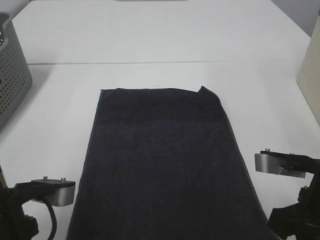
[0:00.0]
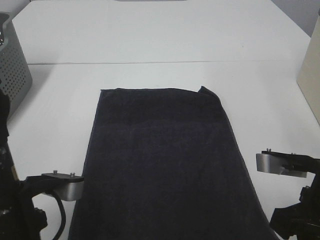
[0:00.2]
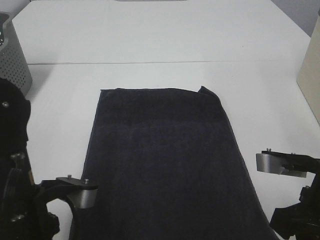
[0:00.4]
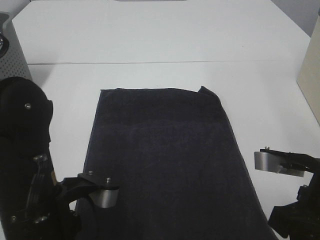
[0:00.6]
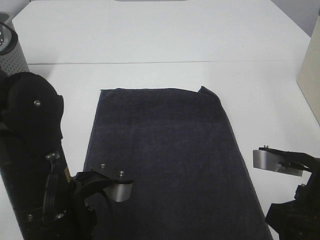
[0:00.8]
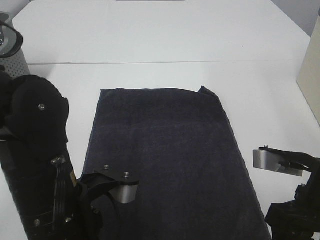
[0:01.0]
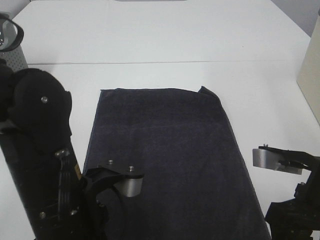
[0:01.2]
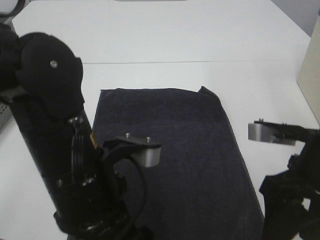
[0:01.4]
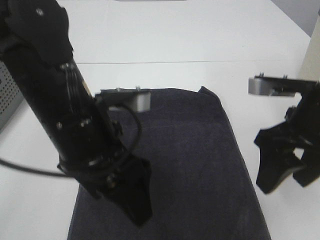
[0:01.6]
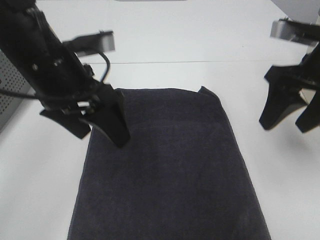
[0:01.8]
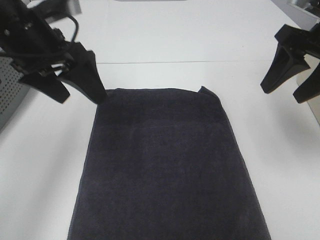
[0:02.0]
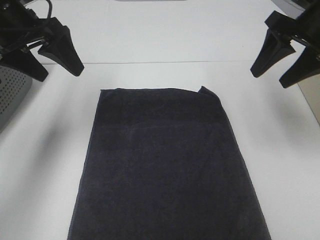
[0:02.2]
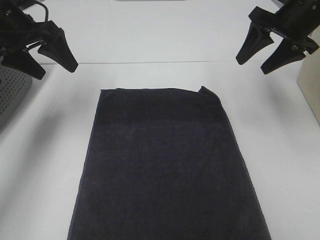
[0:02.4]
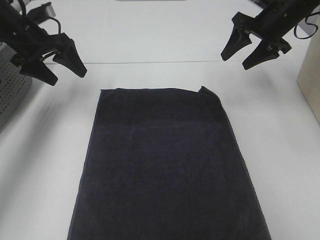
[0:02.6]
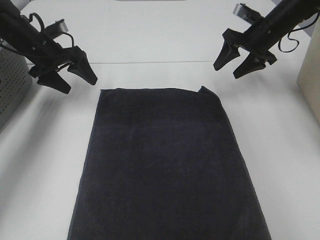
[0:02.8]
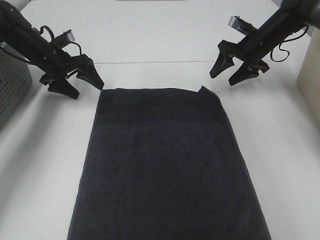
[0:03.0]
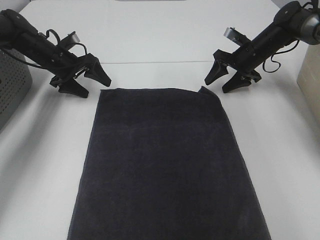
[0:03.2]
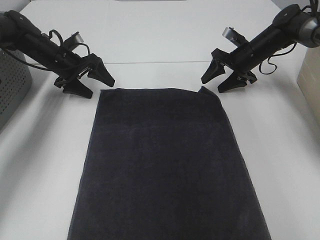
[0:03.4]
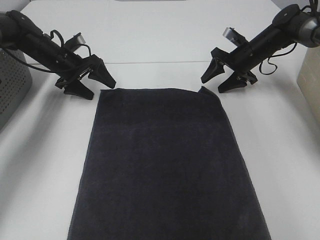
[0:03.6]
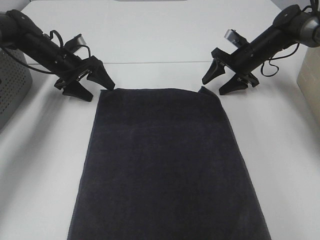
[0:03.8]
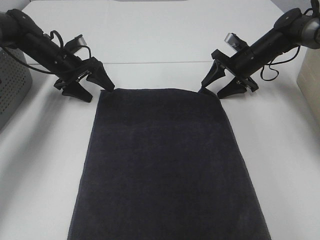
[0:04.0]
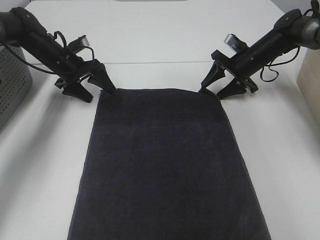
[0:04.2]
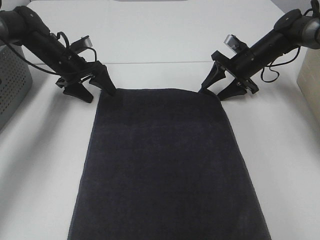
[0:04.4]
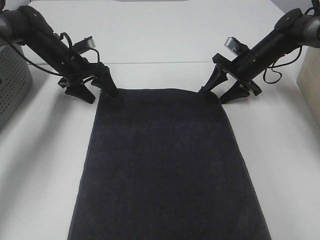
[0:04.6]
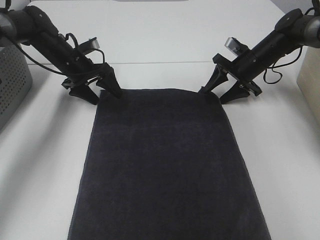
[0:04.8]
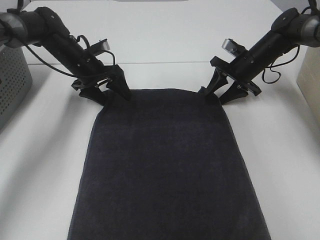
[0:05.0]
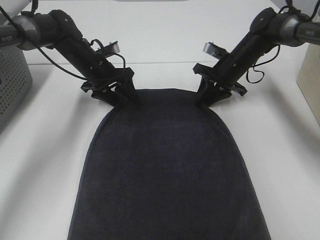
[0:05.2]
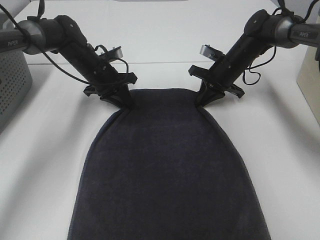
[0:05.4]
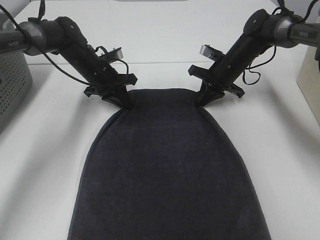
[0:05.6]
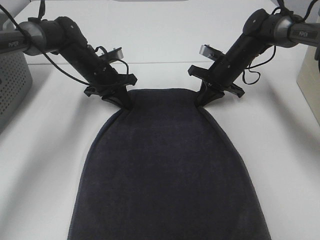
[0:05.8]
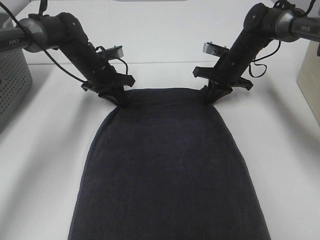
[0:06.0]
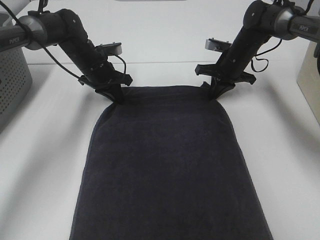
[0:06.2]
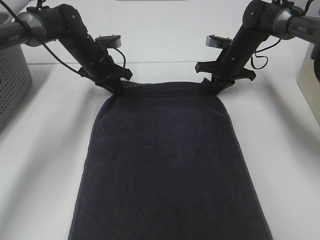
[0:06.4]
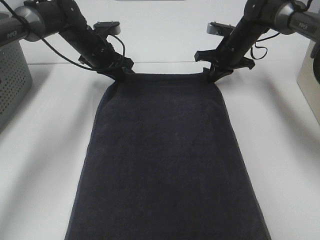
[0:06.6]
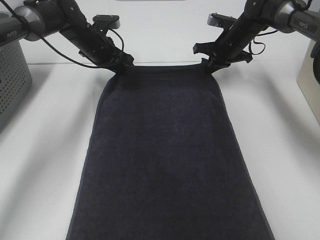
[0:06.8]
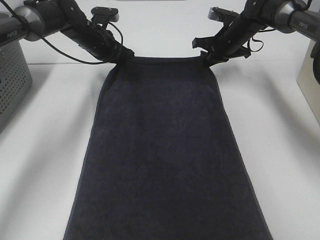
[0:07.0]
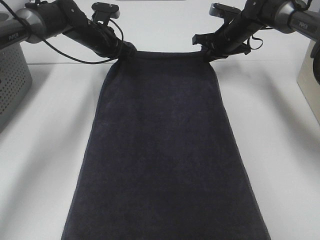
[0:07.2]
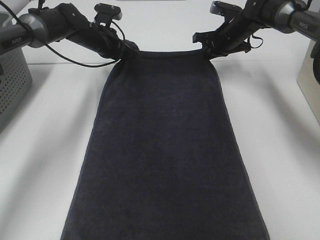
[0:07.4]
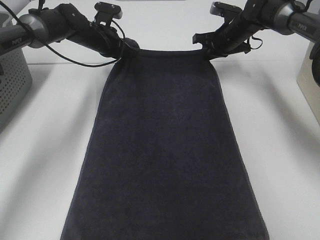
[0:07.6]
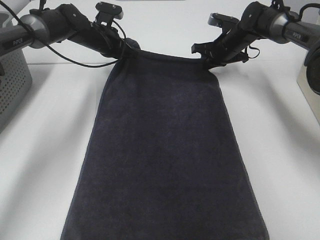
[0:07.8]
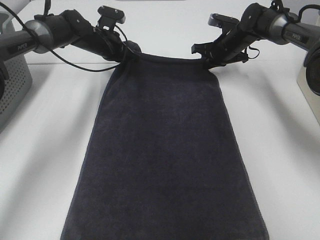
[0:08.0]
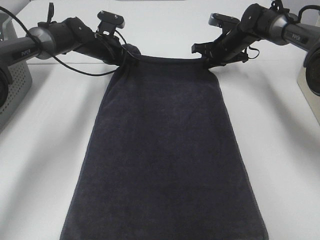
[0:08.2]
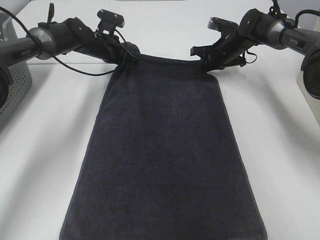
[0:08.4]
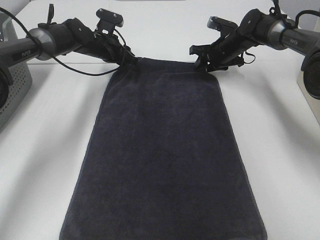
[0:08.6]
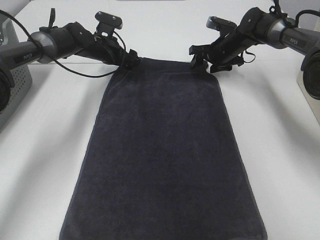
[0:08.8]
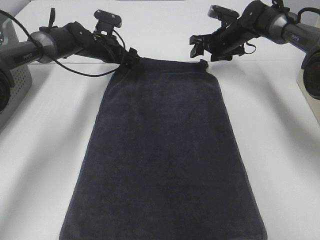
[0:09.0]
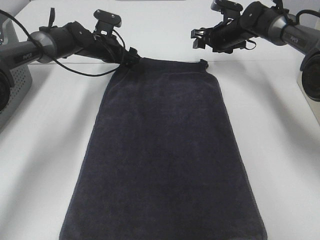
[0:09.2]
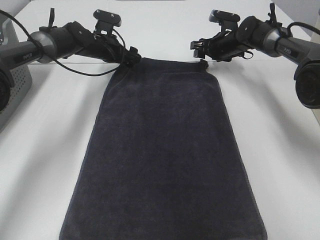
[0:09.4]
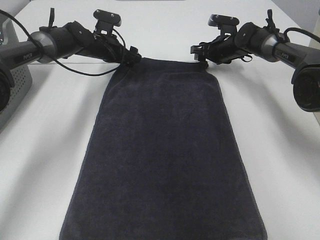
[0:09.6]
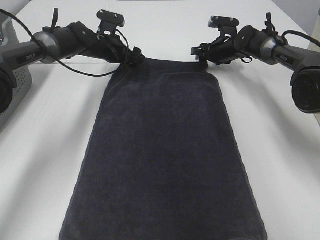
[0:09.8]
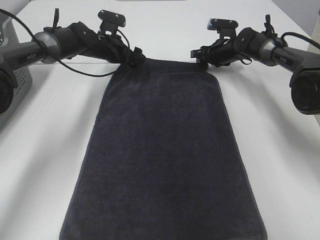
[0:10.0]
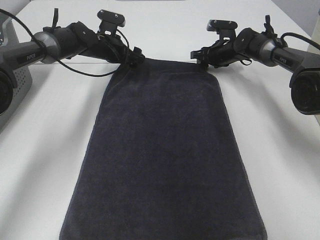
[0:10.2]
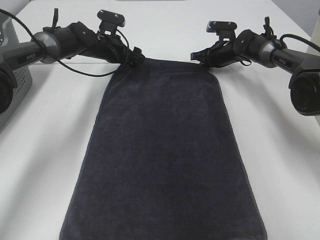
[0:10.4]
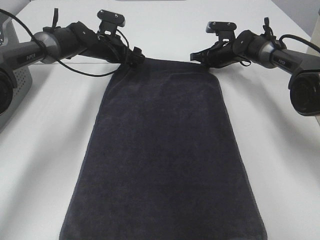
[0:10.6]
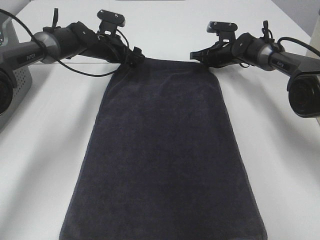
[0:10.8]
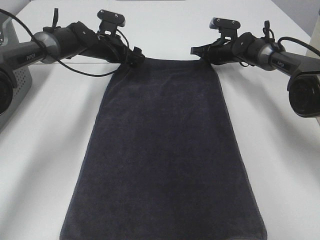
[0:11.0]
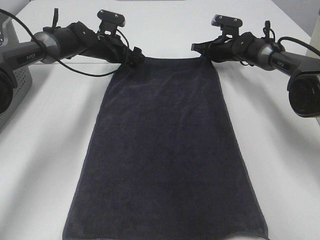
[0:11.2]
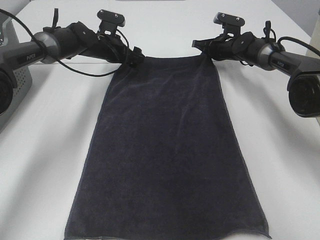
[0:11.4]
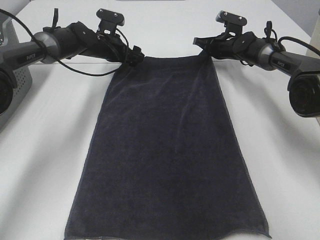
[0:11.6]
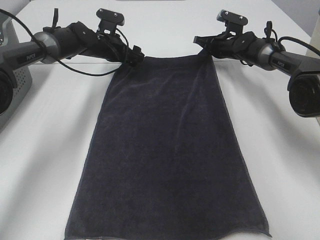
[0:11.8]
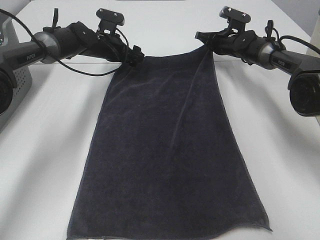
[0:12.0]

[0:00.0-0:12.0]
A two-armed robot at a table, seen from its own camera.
Task of the whole recording: Remove the towel and place it.
Step, 0:00.0 to 0:07.0: Left hand:adjust the gray towel.
Step, 0:00.0 to 0:07.0: Right hand:adjust the gray towel.
0:00.0 to 0:01.6: The left gripper moves forward, to the right and upward, approximately 15 cm, and opens its fingers. Meanwhile the right gripper moves forward and upward, approximately 10 cm, and opens its fingers.
0:01.6 to 0:03.0: The left gripper is displaced forward and to the left by approximately 35 cm; the right gripper is displaced forward by some 30 cm.
0:03.0 to 0:04.4: The right gripper travels downward by some 5 cm.
0:04.4 to 0:06.0: The left gripper is displaced to the right by some 5 cm, and closes up, while the right gripper moves about 5 cm, and closes its fingers.
0:06.0 to 0:07.6: Both grippers travel together forward, about 5 cm.
0:07.6 to 0:09.0: The left gripper opens up. Meanwhile the right gripper opens.
0:09.0 to 0:10.4: The right gripper travels downward by about 5 cm, and closes up.

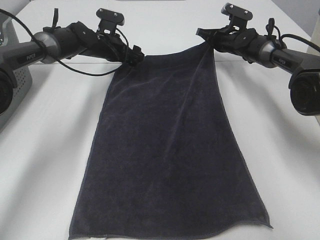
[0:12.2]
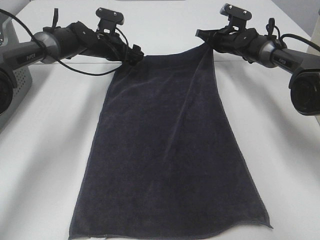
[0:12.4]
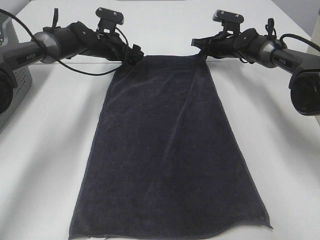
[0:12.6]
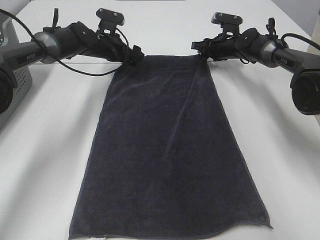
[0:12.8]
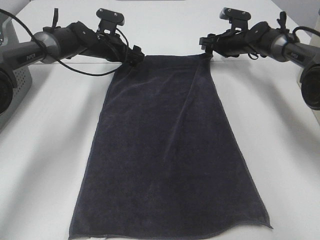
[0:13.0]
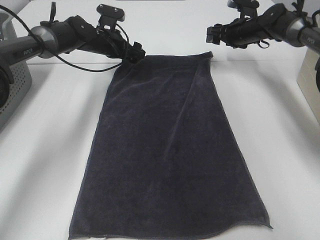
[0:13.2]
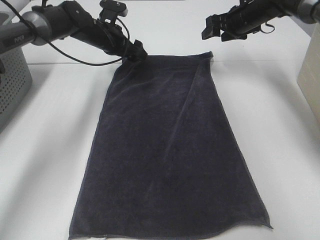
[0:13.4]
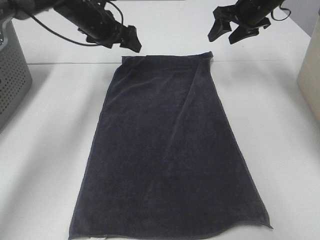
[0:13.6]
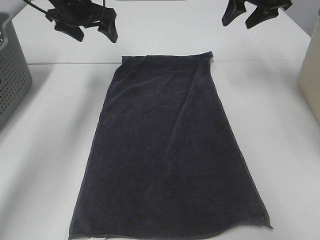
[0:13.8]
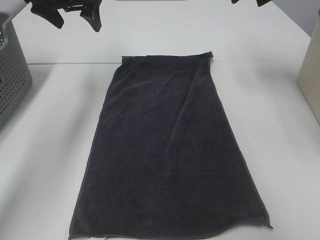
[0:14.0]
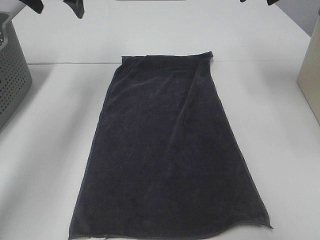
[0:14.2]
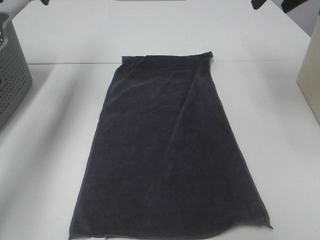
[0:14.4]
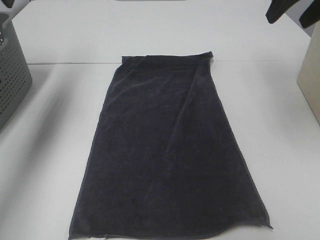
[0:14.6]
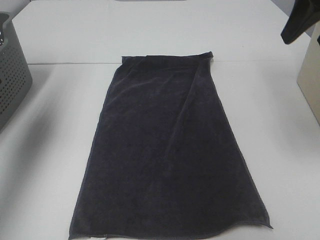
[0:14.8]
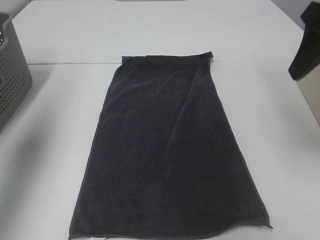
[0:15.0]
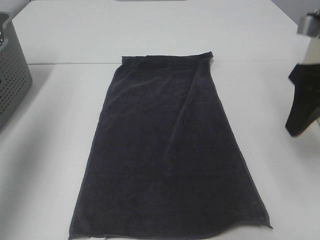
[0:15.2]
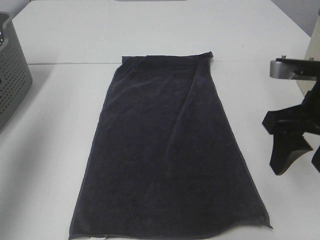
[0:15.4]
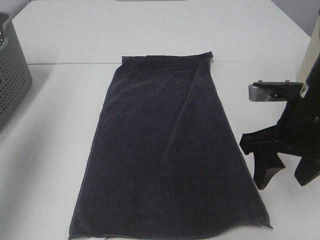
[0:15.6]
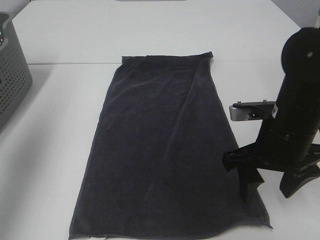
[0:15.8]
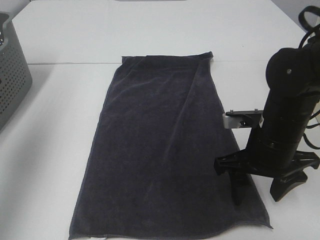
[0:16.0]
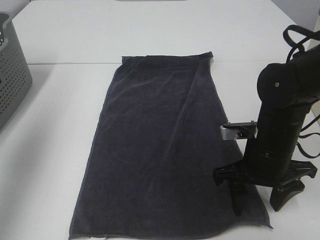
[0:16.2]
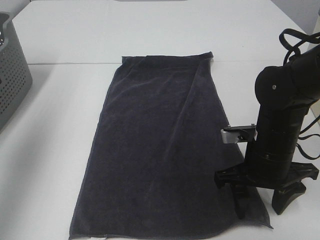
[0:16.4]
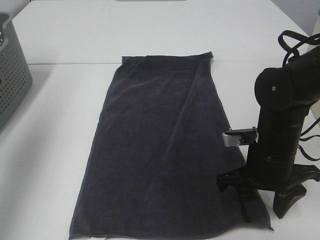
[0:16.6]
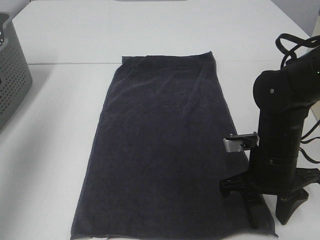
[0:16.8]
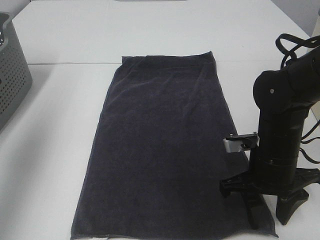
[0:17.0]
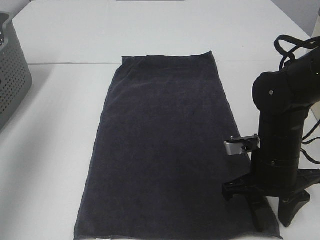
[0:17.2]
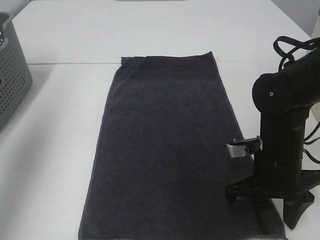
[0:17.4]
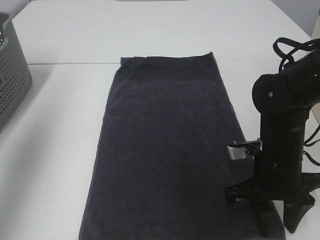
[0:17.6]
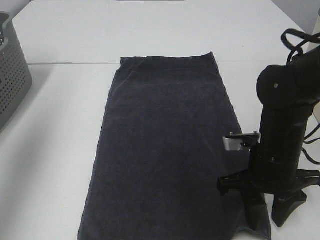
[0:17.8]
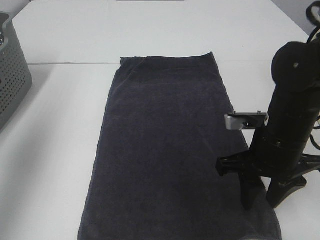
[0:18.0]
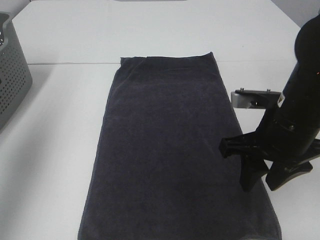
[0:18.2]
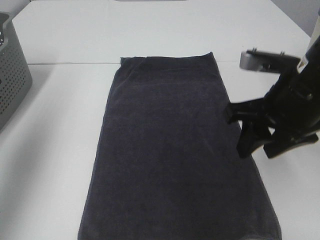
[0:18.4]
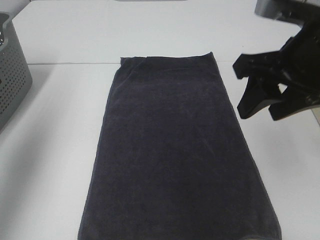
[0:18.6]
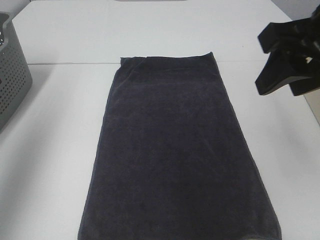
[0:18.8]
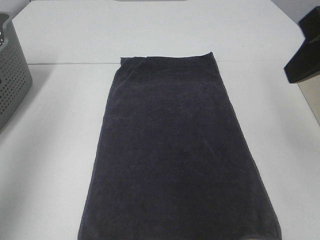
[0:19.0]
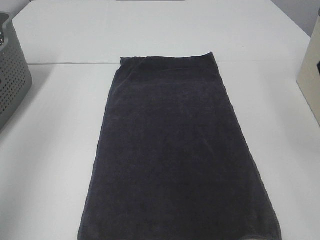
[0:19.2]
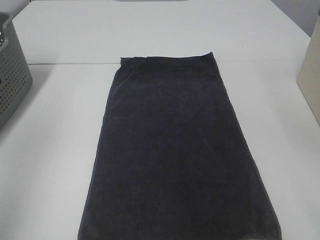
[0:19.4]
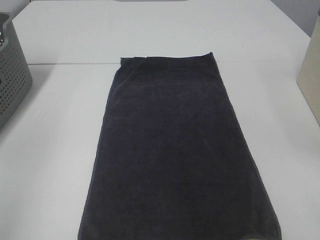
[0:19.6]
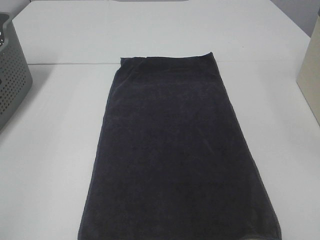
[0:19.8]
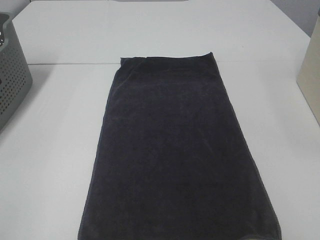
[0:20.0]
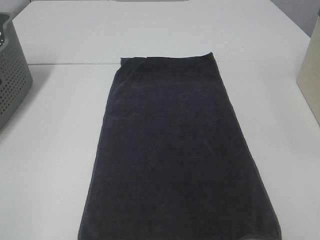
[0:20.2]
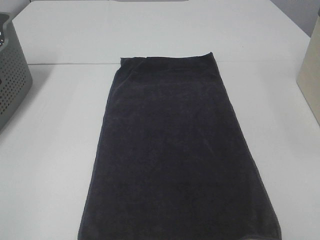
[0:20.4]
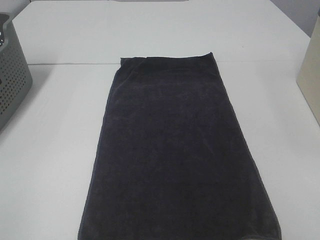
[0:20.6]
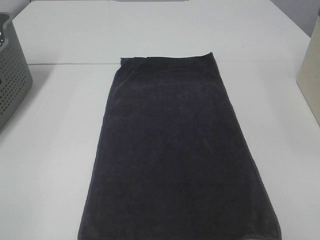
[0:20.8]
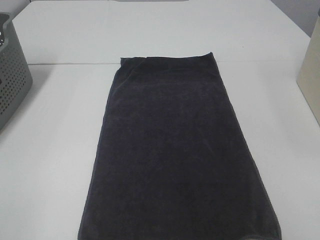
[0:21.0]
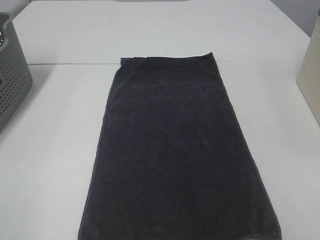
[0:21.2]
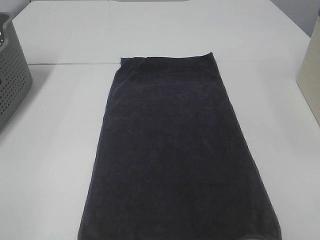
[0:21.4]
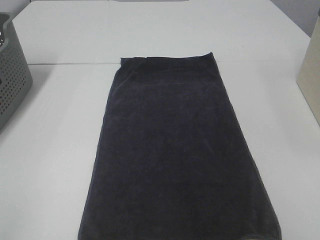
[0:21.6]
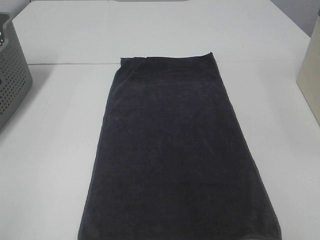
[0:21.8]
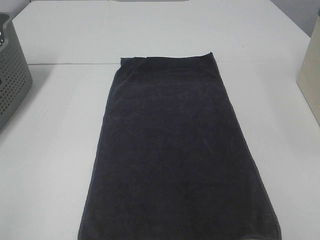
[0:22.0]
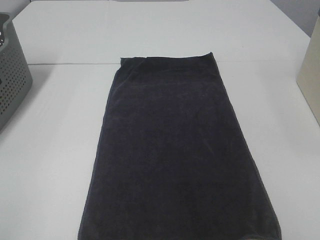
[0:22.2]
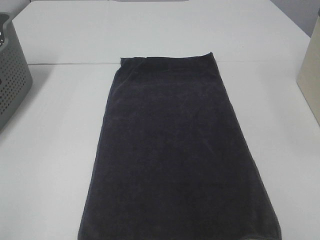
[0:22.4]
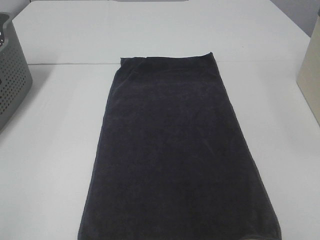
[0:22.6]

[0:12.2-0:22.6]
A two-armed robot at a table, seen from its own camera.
Task of the whole recording: Remove the towel and place it.
0:12.2 to 0:13.6: The left gripper moves upward, roughly 10 cm; the right gripper is displaced upward and backward by some 15 cm, and opens its fingers.
0:13.6 to 0:15.2: The right gripper travels backward by approximately 30 cm. The left gripper heads backward, upward and to the left, covering roughly 40 cm.
0:15.2 to 0:16.6: The right gripper goes approximately 15 cm downward.
0:16.6 to 0:18.2: The right gripper is displaced upward by about 10 cm.
0:18.2 to 0:19.6: The left gripper shifts about 20 cm backward. The right gripper heads backward, upward and to the right, covering roughly 25 cm.
